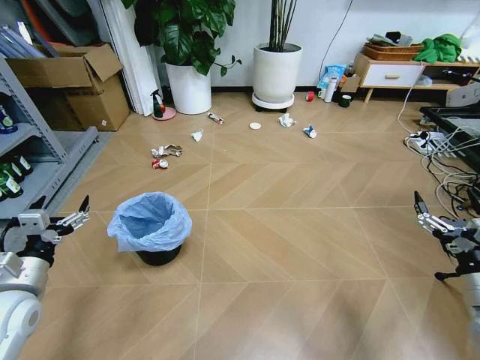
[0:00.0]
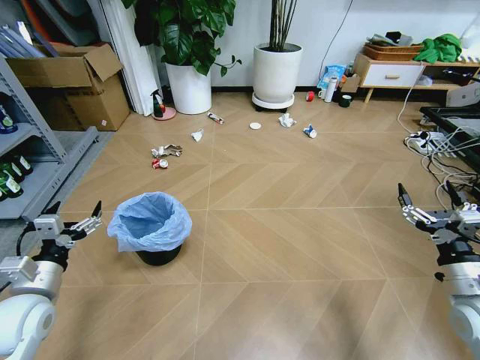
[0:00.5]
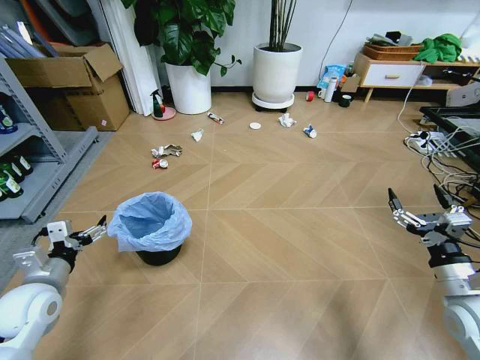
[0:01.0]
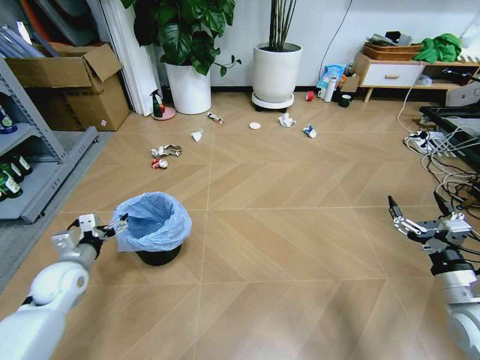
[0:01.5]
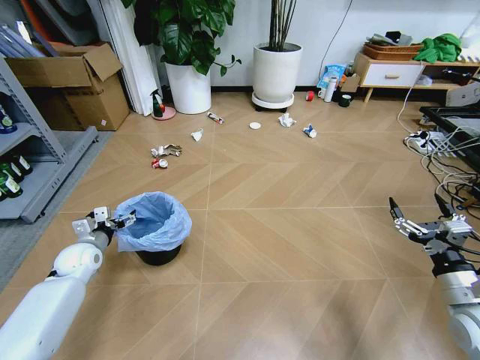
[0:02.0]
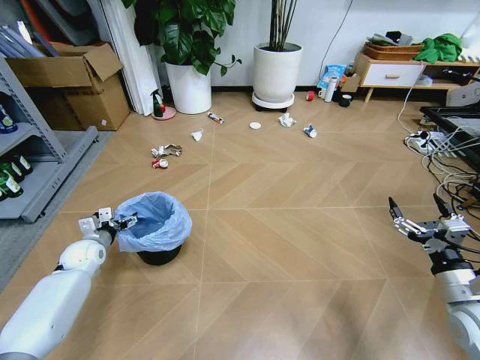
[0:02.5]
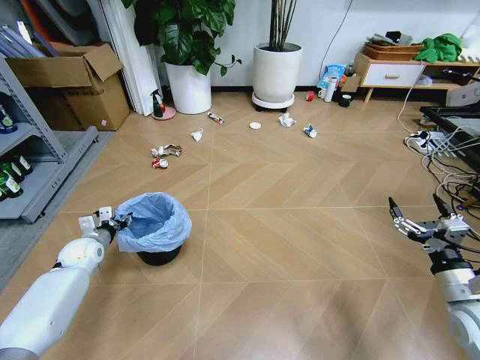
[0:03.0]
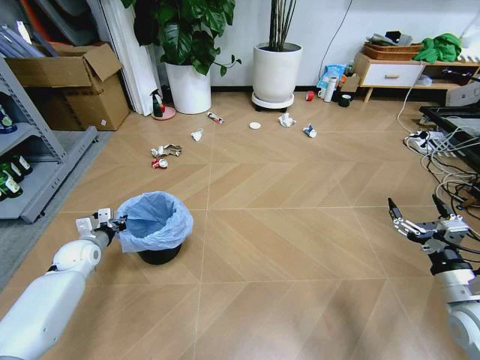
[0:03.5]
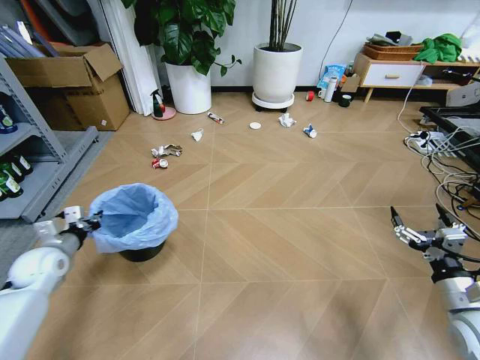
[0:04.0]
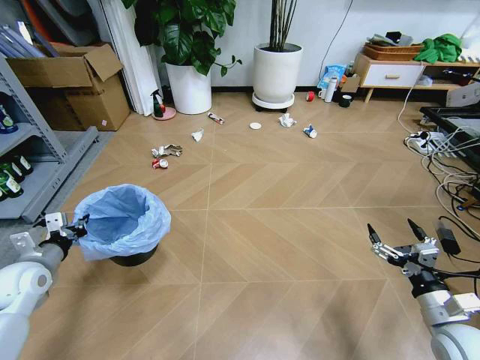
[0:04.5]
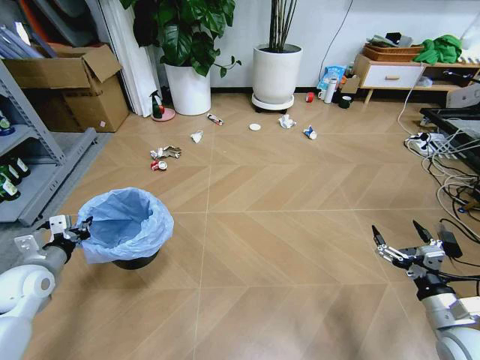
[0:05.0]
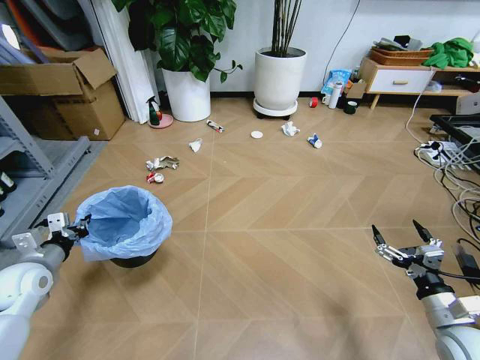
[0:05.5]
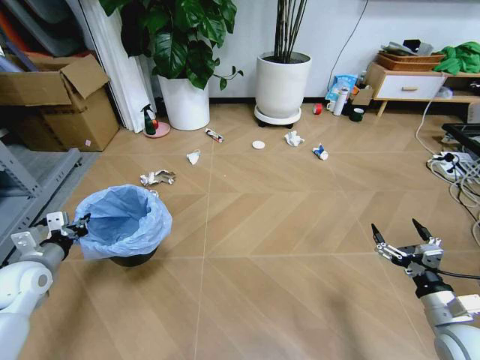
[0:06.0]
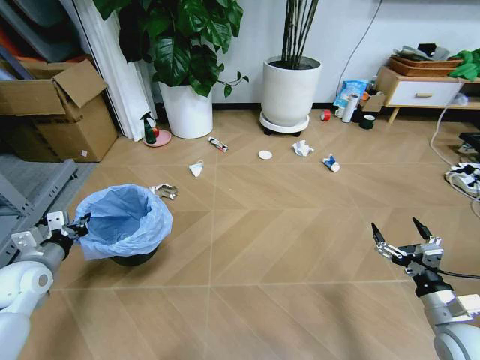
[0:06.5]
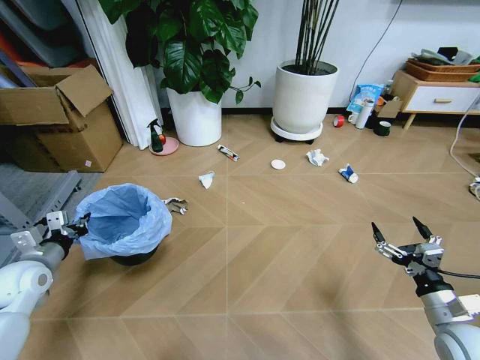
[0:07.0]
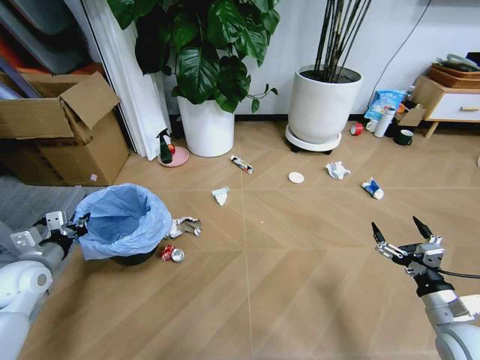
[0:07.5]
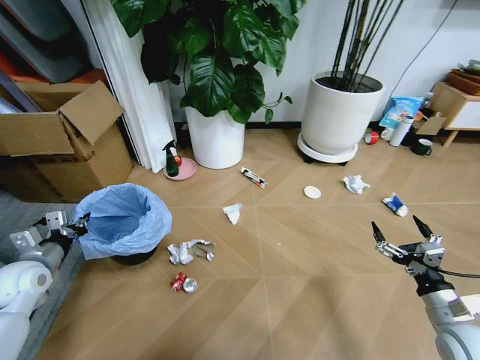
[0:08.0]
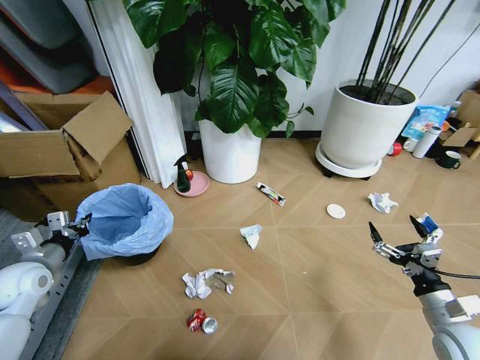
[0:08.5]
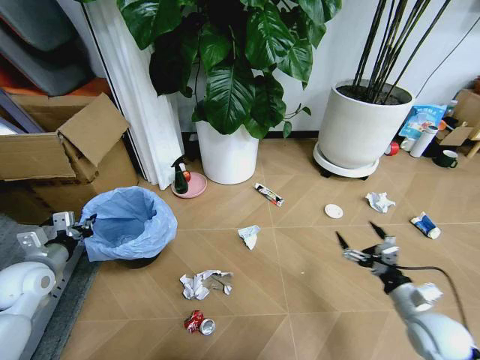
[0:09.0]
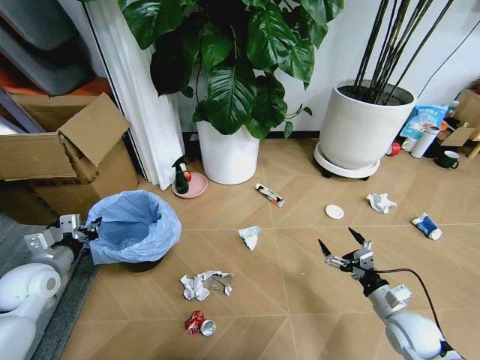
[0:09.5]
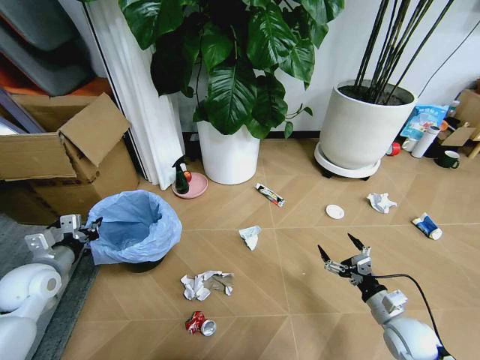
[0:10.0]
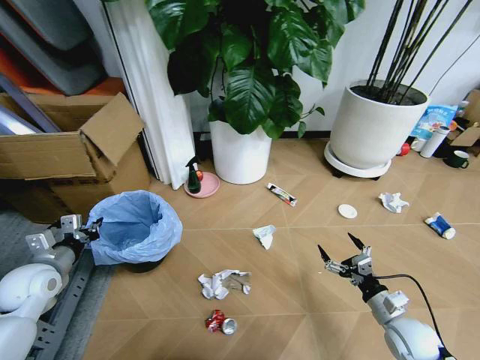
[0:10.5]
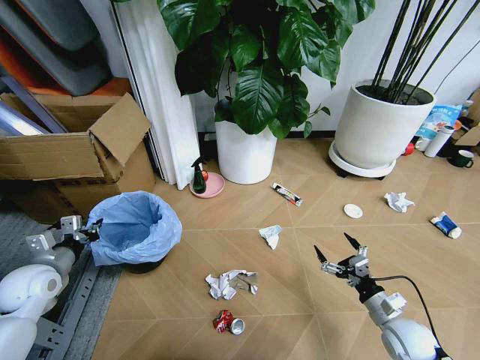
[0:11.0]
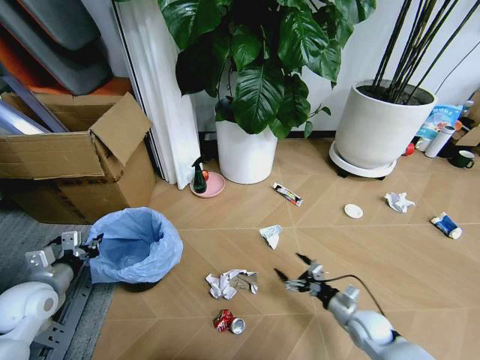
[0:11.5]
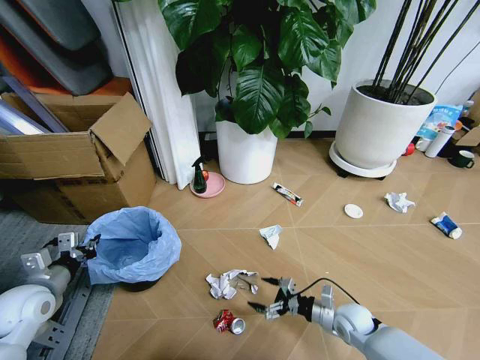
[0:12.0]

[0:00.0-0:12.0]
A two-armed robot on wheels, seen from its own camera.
Task of the whole recording: Pick up the trash bin and place the garbage on the floor into it.
0:02.0 to 0:04.0: The left gripper travels upward by about 5 cm, and closes its fingers.
0:04.0 to 0:06.0: The left gripper shifts by roughly 5 cm.
0:08.0 to 0:10.0: The right gripper goes about 10 cm downward.
0:10.0 to 0:12.0: The right gripper is displaced to the left, downward and forward by some 10 cm.

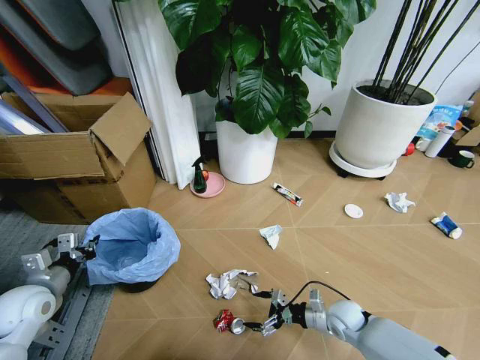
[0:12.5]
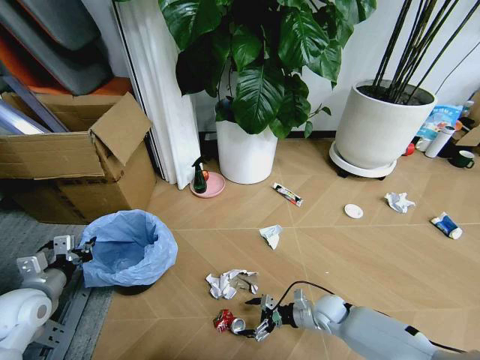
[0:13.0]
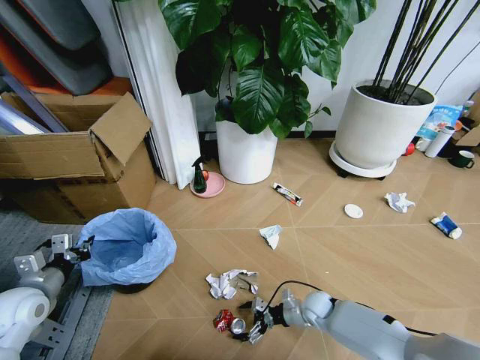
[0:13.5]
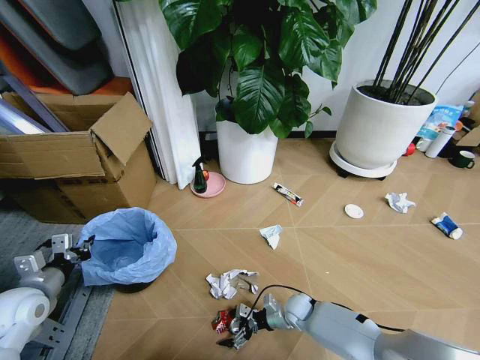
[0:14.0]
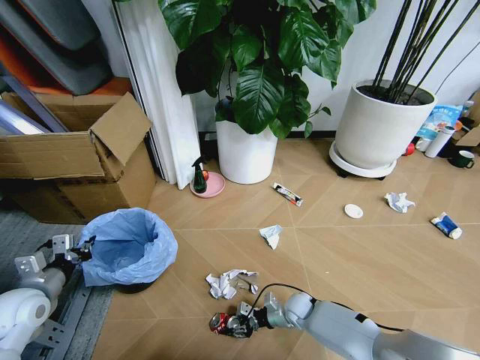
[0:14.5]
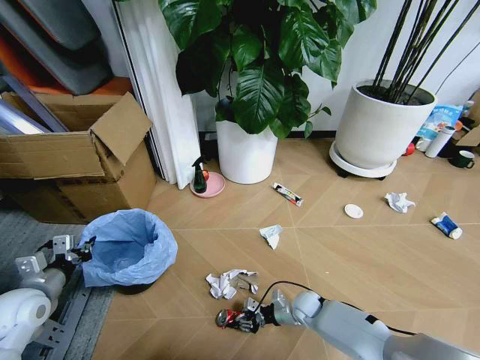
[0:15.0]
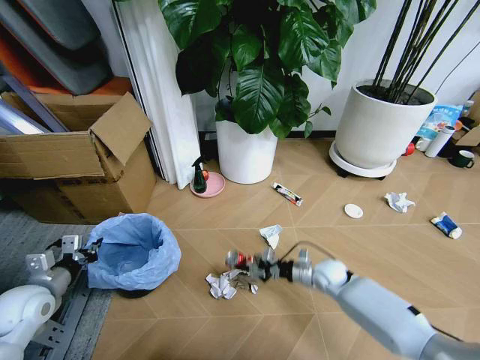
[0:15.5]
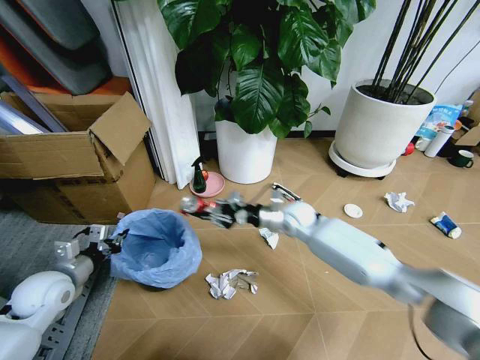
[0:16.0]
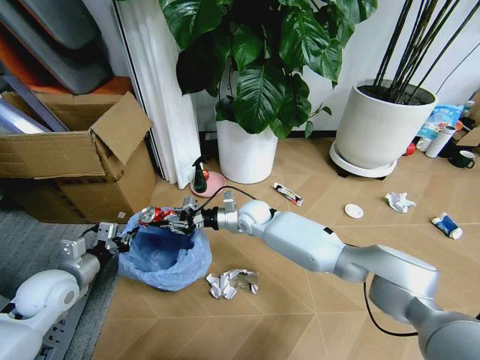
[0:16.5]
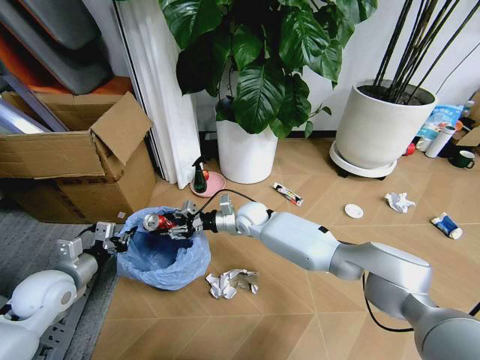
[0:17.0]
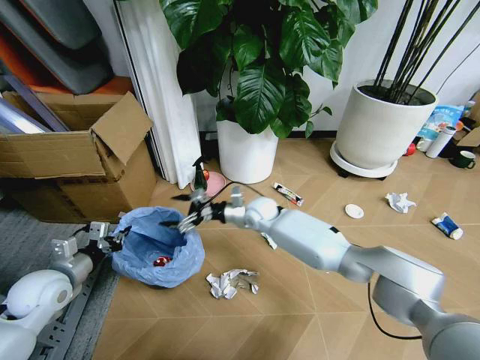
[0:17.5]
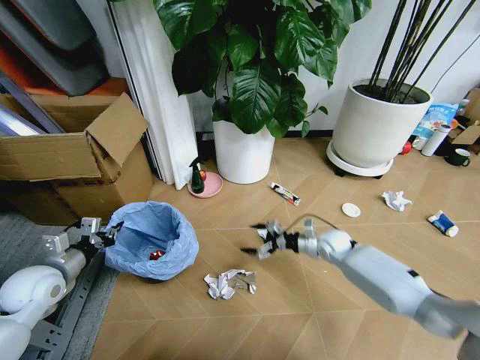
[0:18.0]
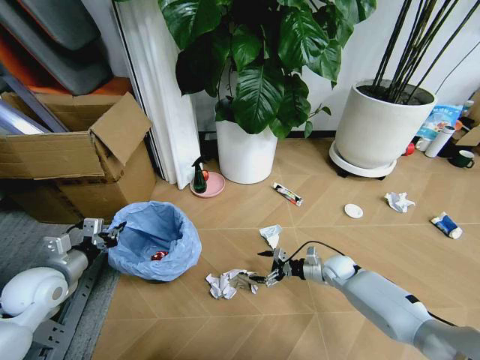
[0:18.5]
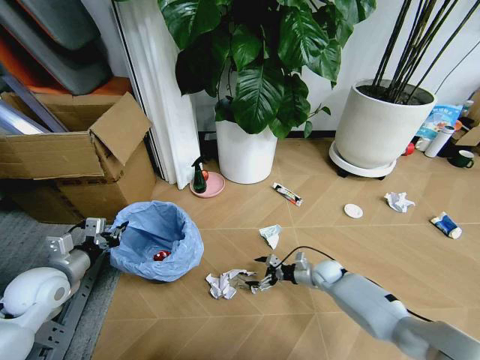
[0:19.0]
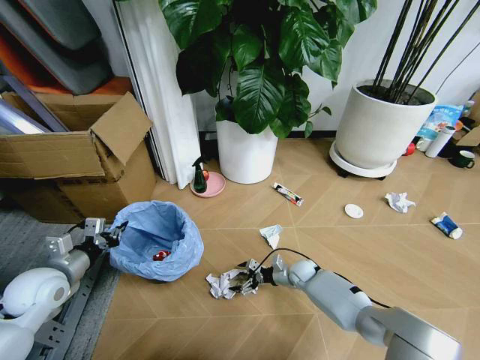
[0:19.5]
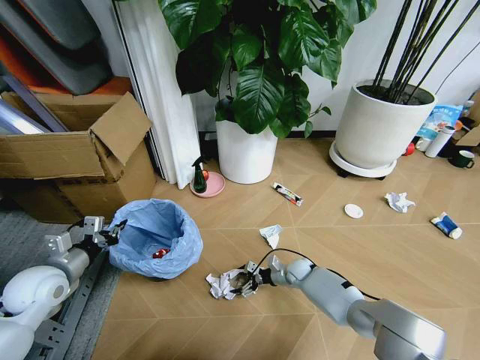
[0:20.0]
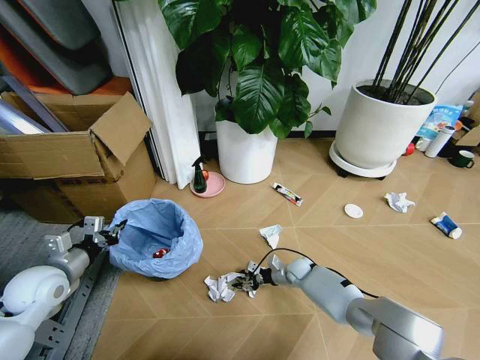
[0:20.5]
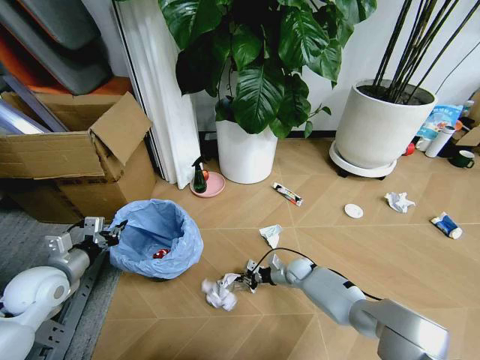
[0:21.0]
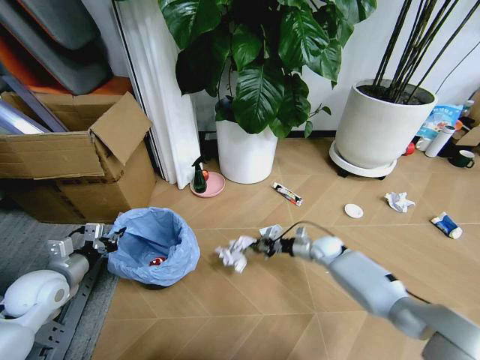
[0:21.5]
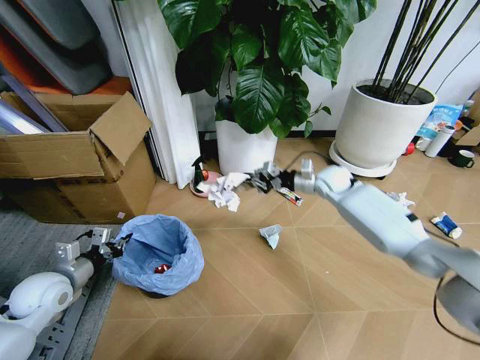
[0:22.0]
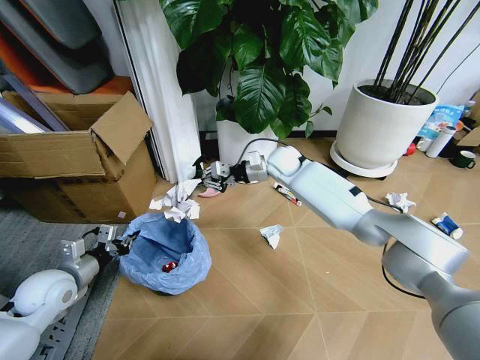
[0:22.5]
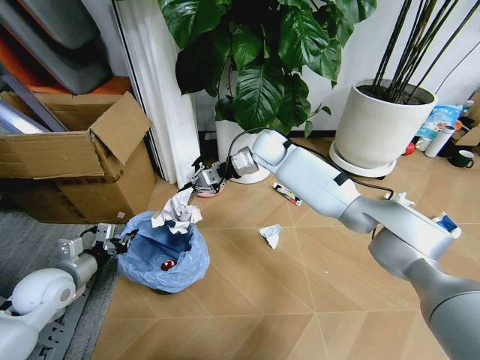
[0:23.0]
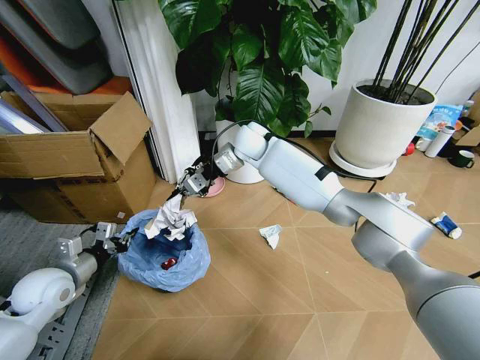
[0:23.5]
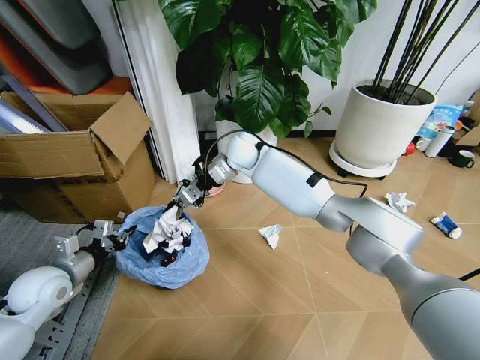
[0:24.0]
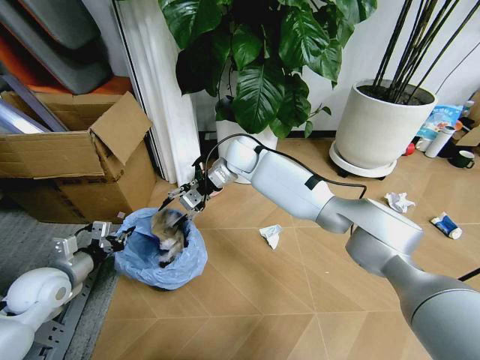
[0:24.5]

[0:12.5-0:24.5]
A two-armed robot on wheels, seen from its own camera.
Task of the whole recording: Pick up the trash bin and place the garbage on the floor into it.
0:12.5 to 0:14.5: The right gripper is displaced to the left and downward by roughly 10 cm, and closes up.
0:14.5 to 0:16.5: The right gripper shifts some 35 cm upward, forward and to the left. The left gripper ends up roughly 5 cm from where it was.
0:16.5 to 0:18.5: The right gripper heads to the right and downward, covering approximately 30 cm, and opens up.
0:18.5 to 0:20.5: The right gripper travels to the left and downward by roughly 10 cm, and closes up.
0:20.5 to 0:22.5: The right gripper travels upward and forward by some 40 cm, and closes.
0:22.5 to 0:24.5: The right gripper moves to the left, some 10 cm, and opens.

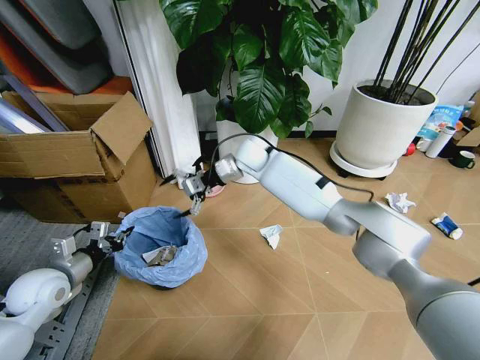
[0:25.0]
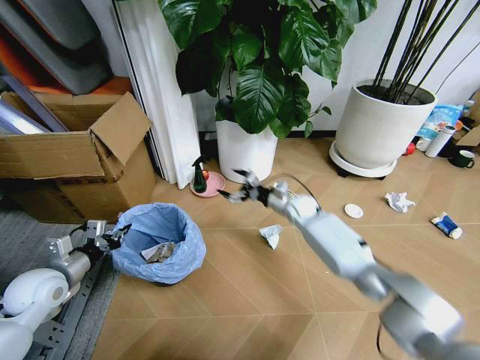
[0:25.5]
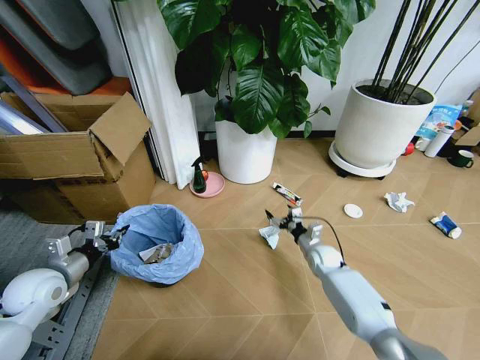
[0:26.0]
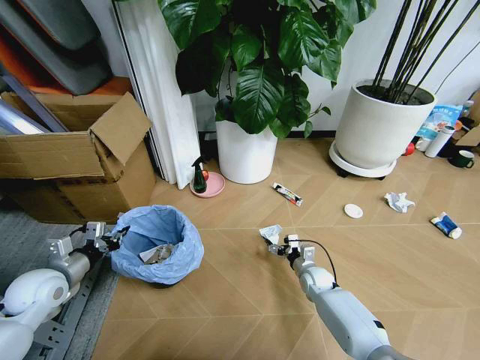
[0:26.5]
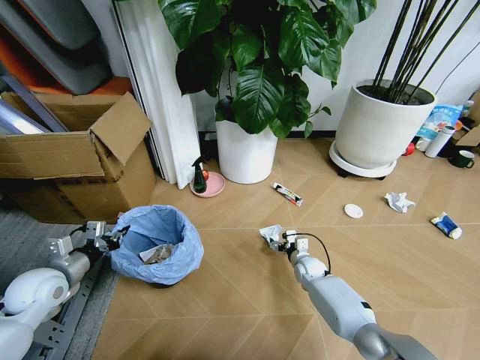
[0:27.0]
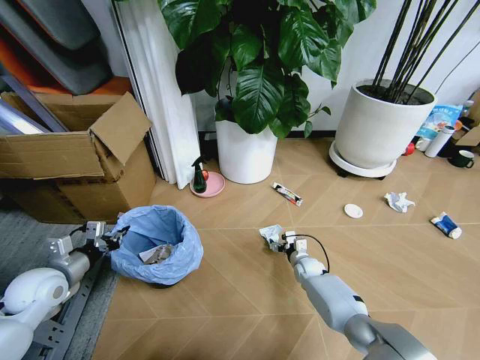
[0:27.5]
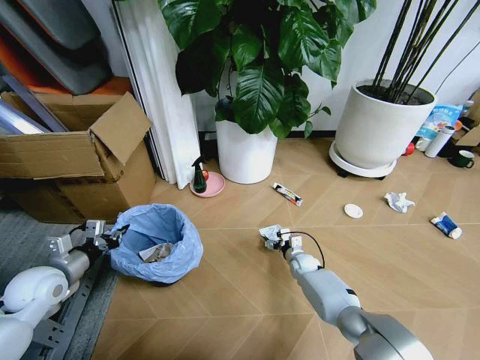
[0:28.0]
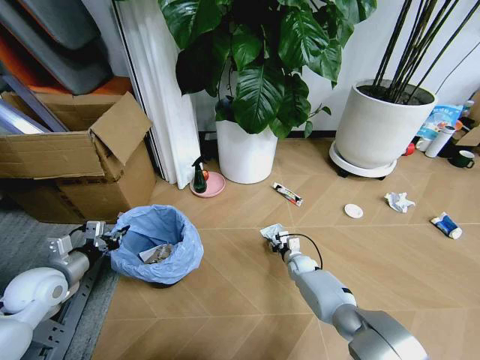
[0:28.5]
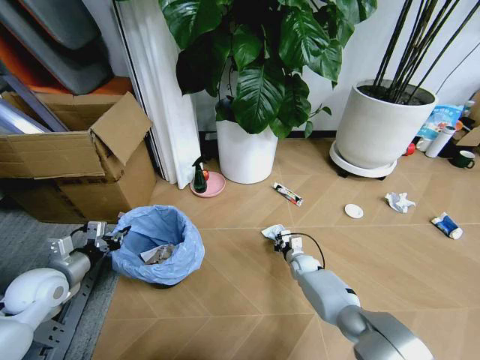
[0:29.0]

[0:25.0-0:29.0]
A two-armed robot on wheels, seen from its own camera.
Task of the whole recording: Pick up the trash bin and place the garbage on the floor into it.
0:25.0 to 0:27.0: The right gripper goes approximately 40 cm downward, to the right and backward.
0:27.0 to 0:29.0: The right gripper closes its fingers.
